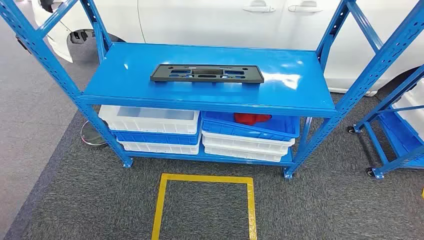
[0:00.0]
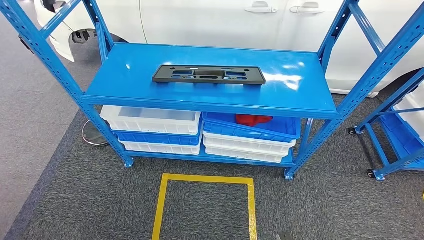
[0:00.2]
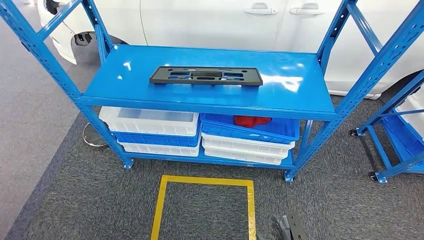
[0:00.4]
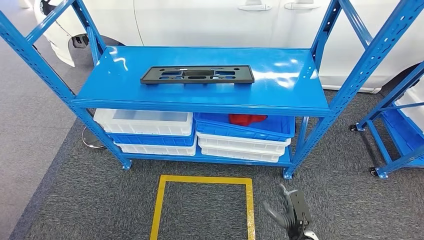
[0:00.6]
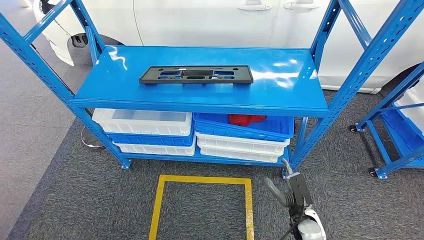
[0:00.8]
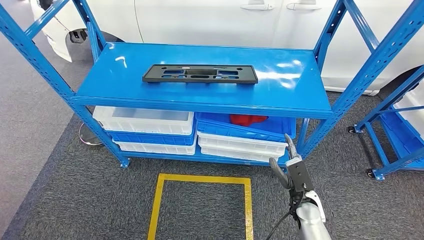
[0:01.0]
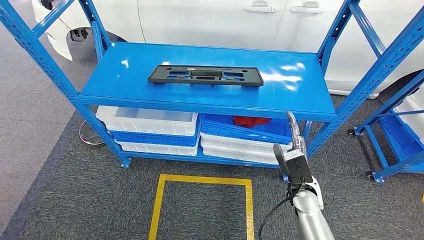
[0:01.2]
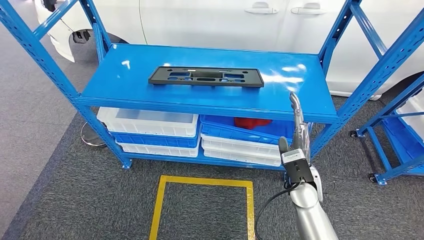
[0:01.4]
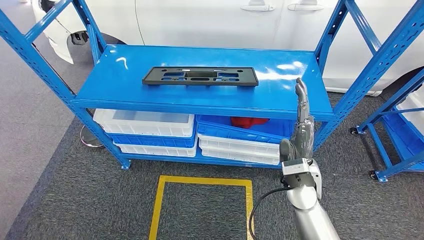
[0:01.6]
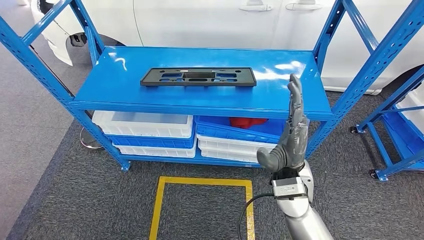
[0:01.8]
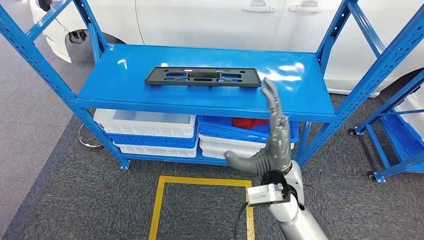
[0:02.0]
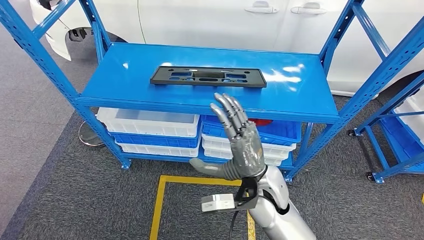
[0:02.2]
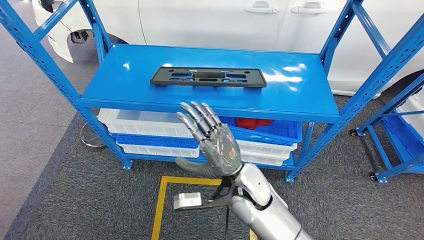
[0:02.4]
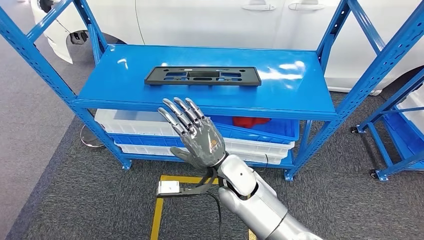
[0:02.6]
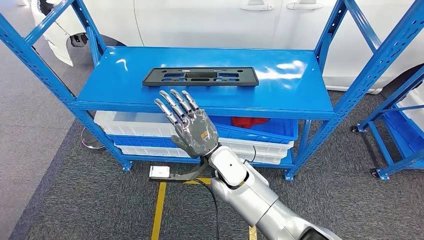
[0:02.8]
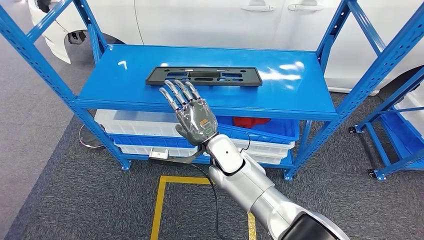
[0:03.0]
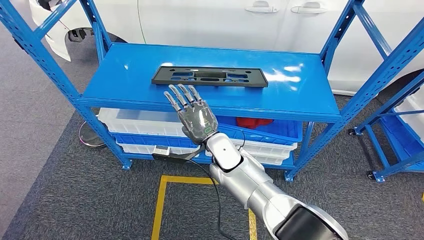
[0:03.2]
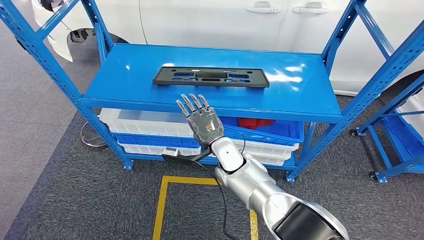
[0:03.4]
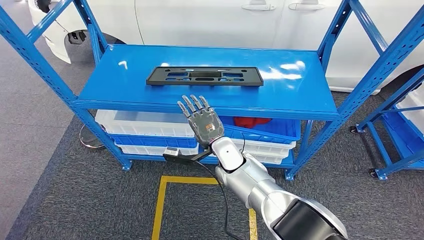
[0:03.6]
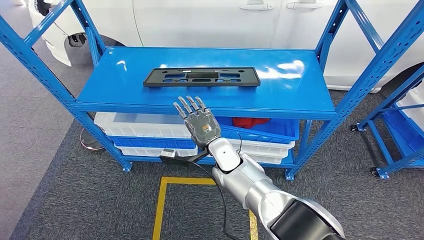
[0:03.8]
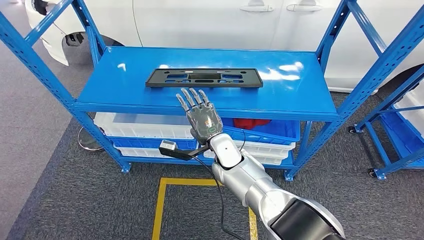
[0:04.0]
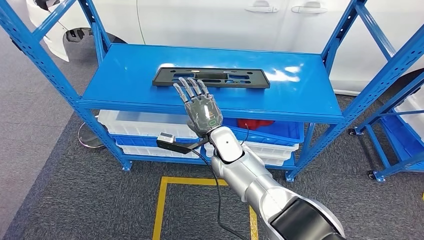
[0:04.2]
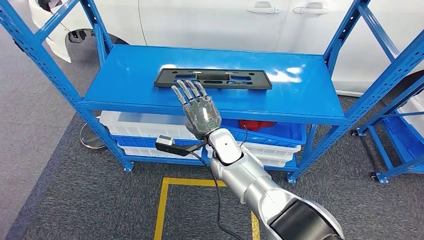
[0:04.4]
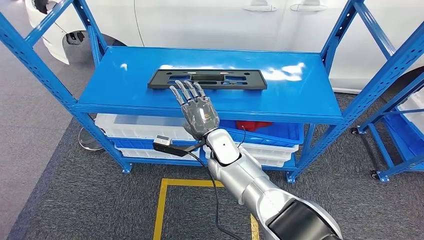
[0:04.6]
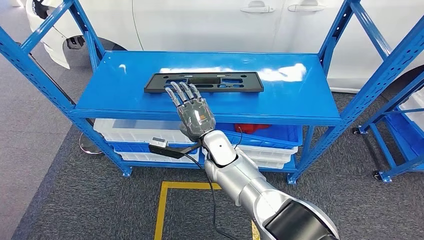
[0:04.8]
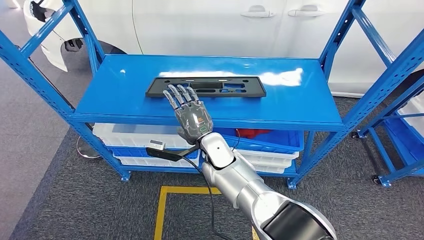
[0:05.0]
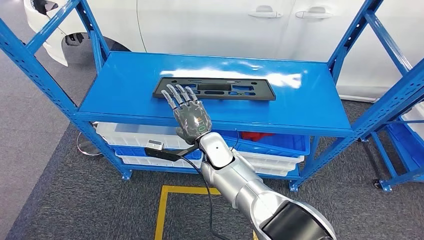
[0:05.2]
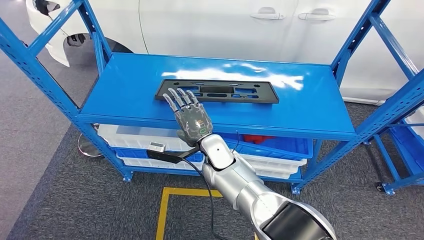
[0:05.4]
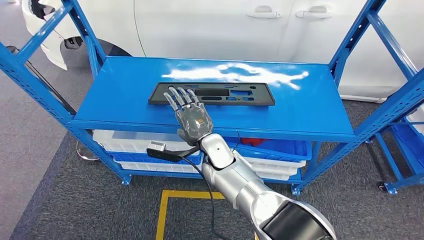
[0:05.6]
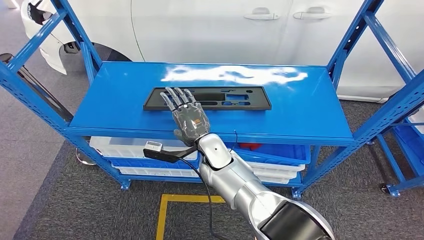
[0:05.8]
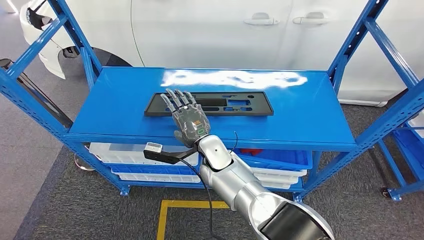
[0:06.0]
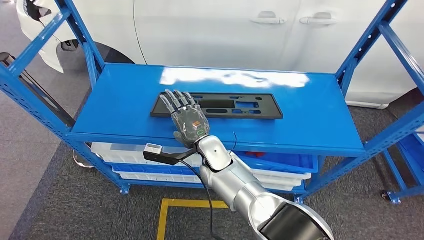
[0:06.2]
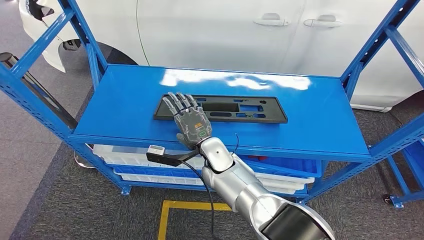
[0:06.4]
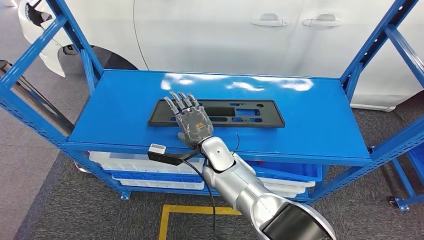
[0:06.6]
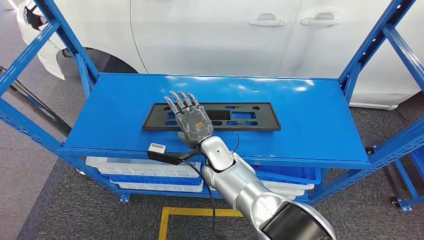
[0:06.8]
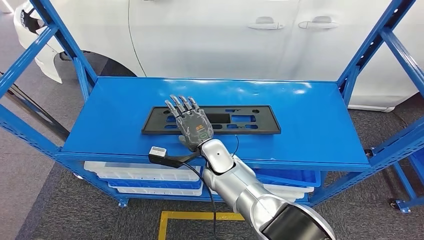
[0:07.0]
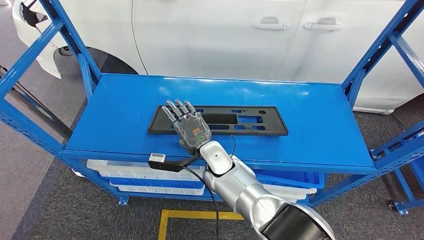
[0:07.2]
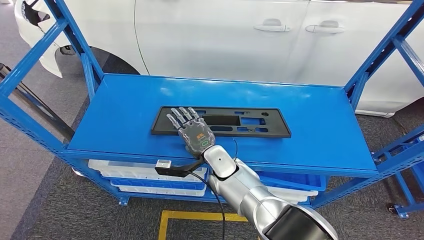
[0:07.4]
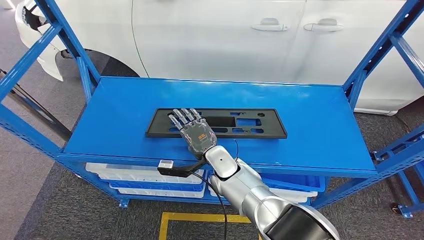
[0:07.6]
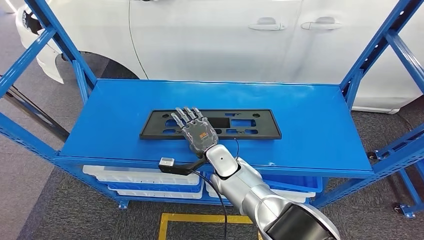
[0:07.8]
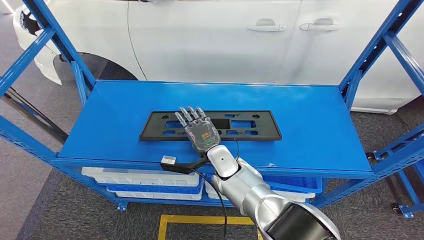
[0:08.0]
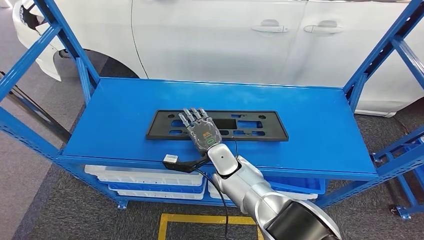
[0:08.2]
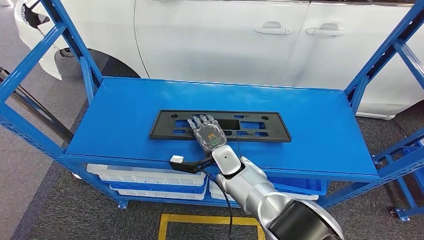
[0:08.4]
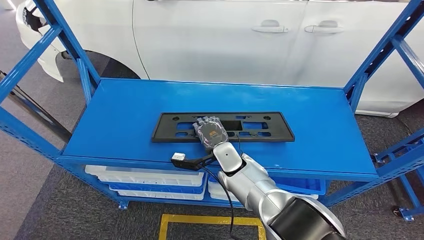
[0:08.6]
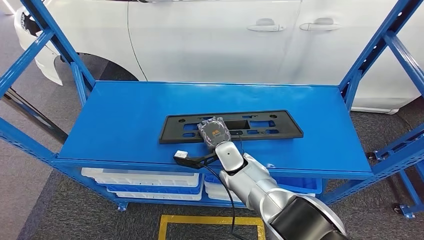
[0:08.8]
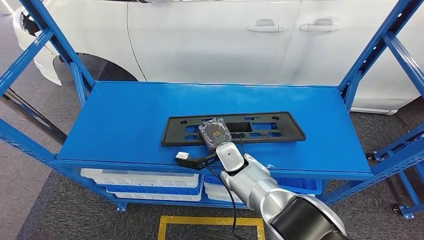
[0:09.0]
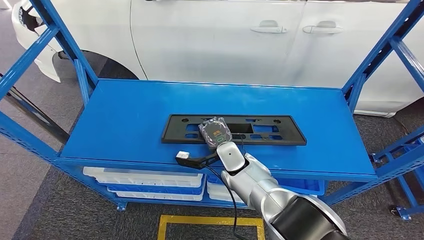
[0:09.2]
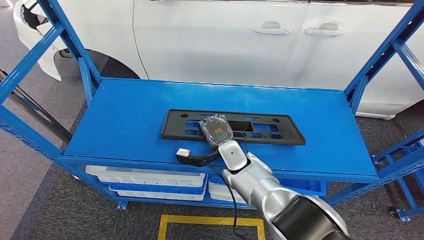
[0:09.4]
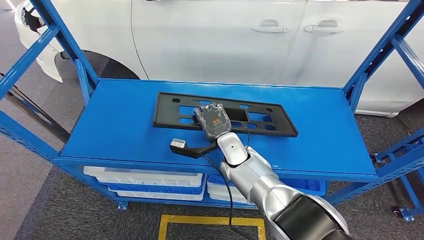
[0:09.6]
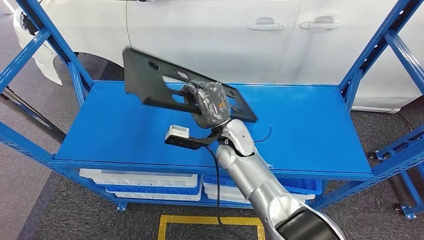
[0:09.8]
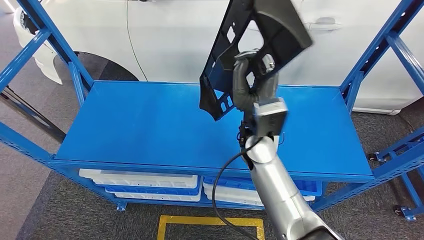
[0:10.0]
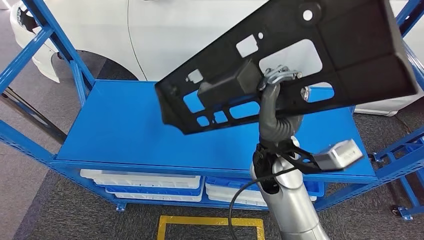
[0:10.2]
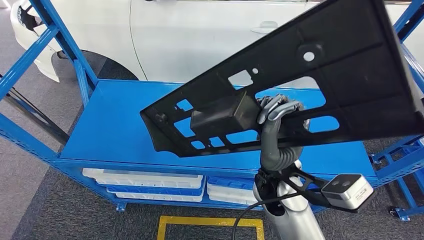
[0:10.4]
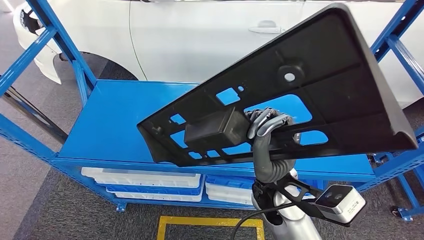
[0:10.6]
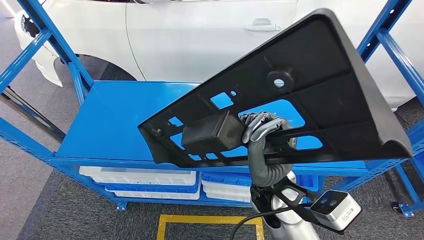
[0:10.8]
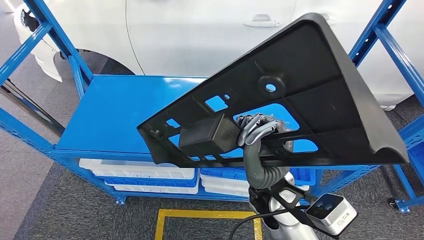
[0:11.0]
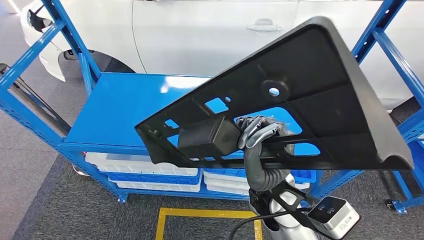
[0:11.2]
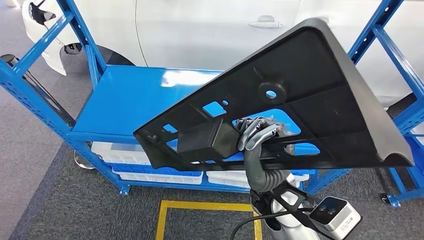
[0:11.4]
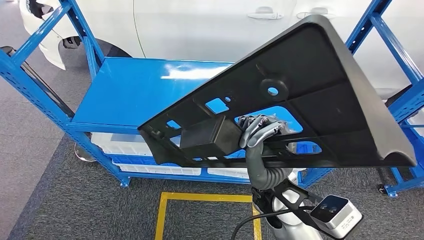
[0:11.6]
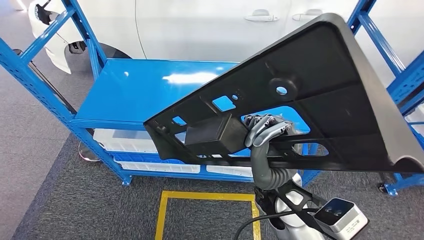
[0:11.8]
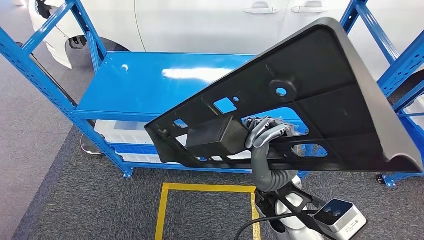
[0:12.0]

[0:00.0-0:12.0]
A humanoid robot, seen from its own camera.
Step, 0:00.0 to 0:10.0: Pick up the small component from the shelf.
0:01.6 to 0:03.0: The right hand shifts about 20 cm to the left.

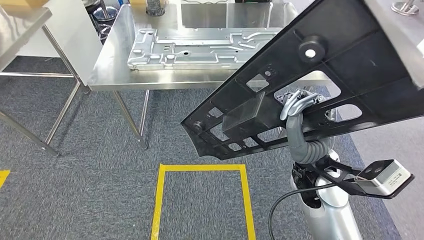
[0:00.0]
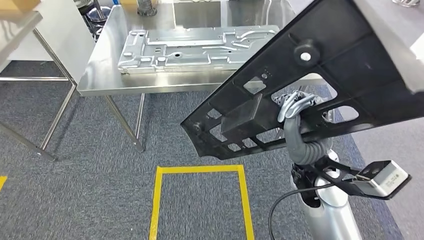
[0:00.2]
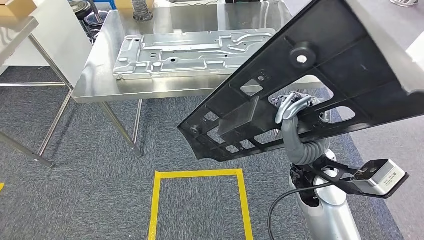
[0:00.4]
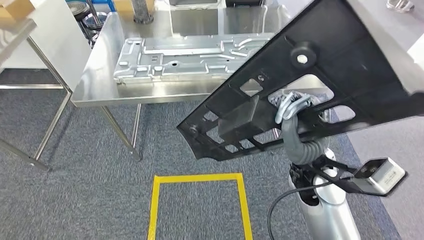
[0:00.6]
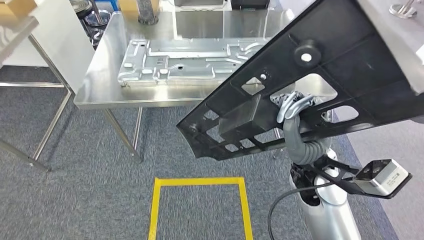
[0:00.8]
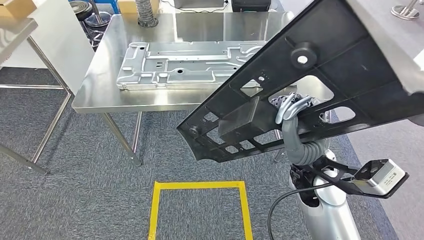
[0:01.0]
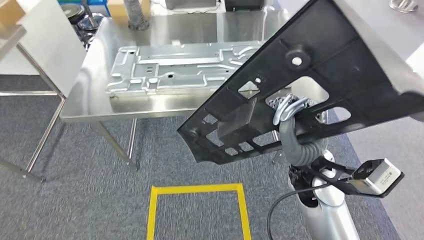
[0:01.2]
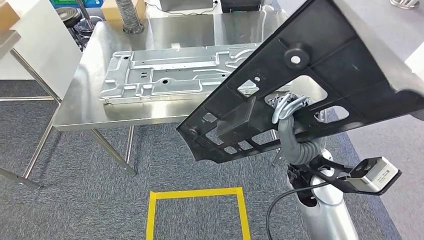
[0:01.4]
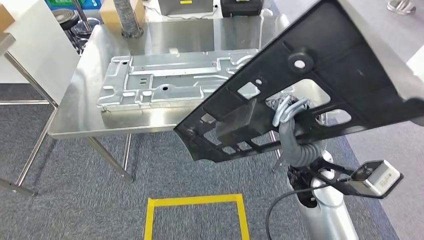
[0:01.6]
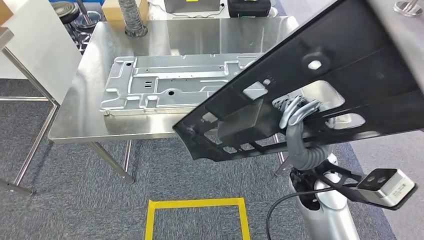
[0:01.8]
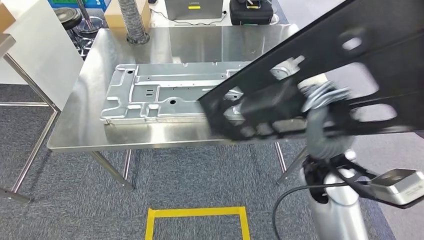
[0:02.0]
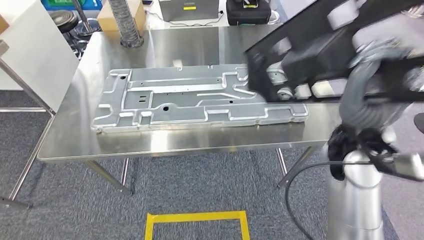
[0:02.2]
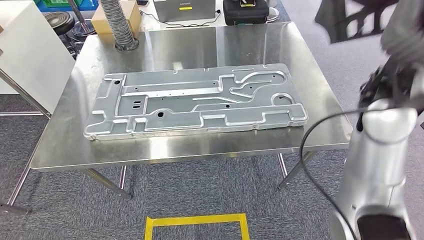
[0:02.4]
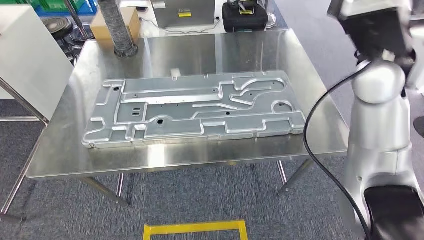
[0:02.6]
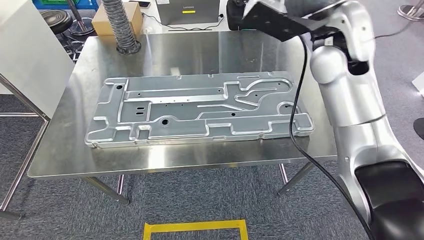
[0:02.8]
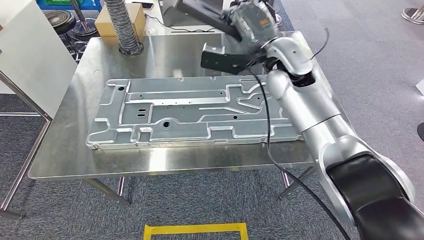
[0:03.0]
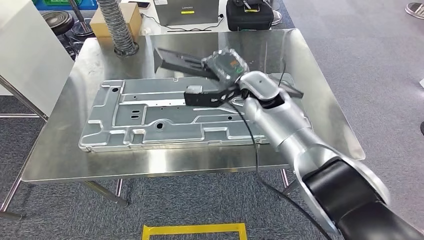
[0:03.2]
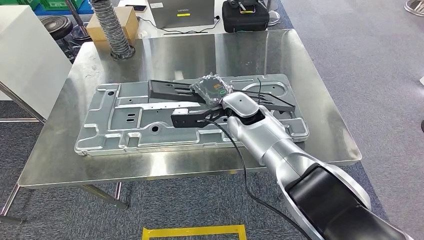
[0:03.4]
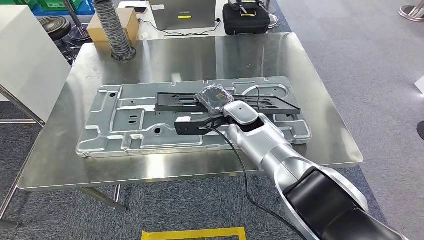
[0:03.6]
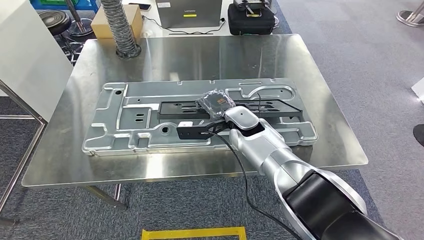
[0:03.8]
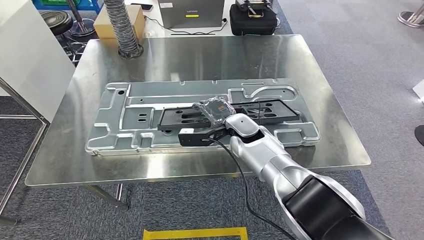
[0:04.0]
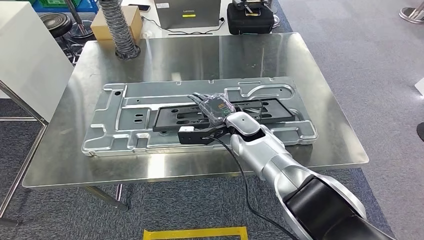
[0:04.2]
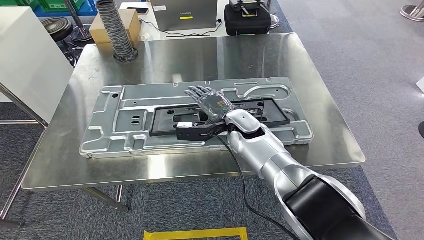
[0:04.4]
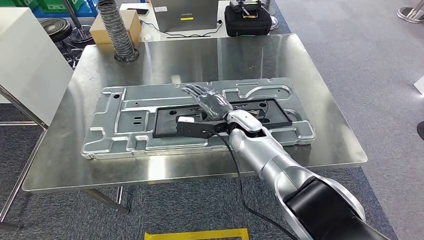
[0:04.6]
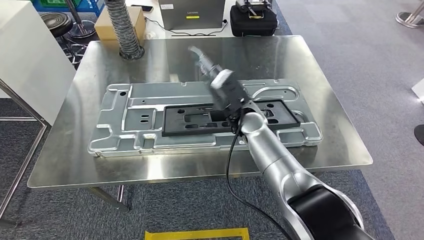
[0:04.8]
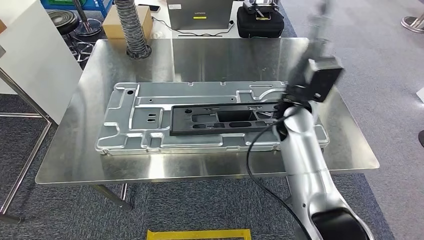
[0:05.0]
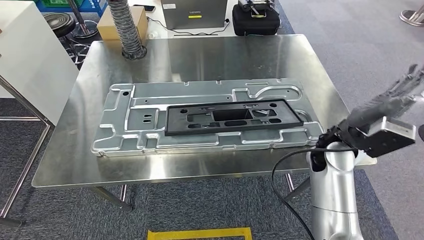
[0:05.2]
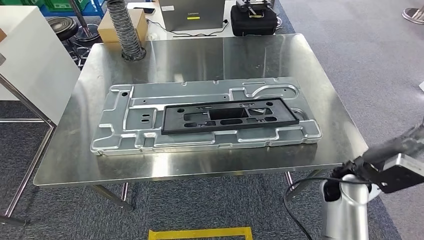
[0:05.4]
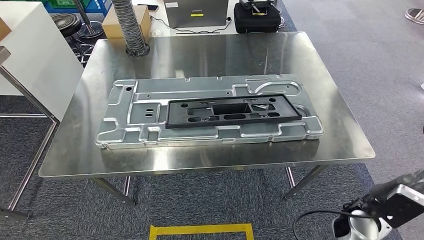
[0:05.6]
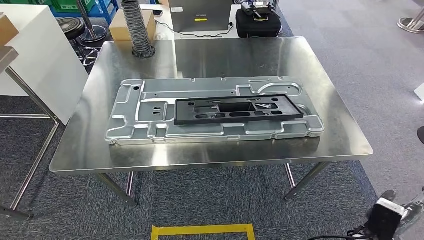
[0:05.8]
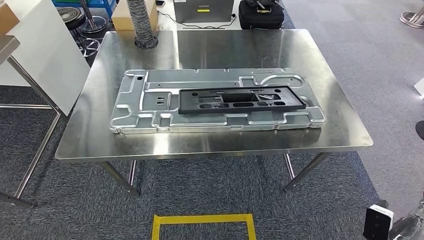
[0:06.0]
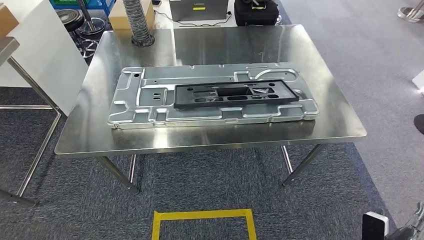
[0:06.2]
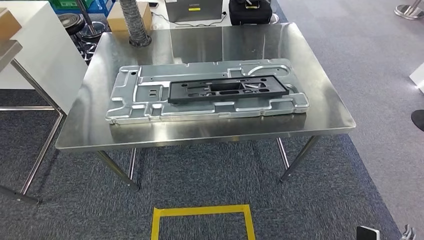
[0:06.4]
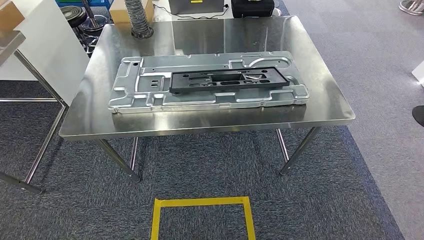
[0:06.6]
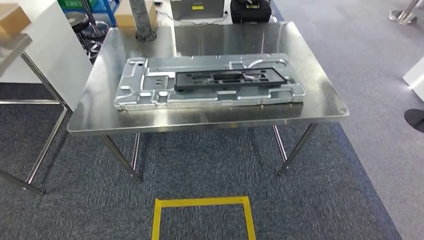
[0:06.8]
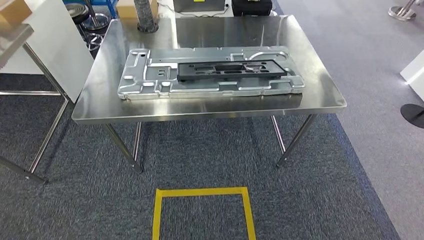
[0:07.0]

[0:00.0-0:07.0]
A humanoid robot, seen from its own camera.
Step, 0:00.0 to 0:02.0: Move the small component to the workbench.
Step, 0:02.2 to 0:06.0: Insert the small component into the corresponding slot on the workbench.
